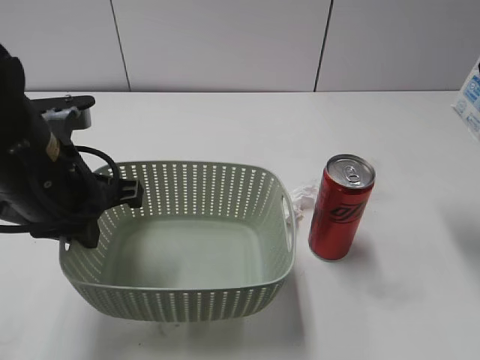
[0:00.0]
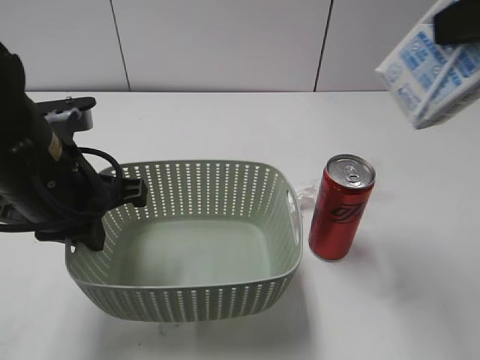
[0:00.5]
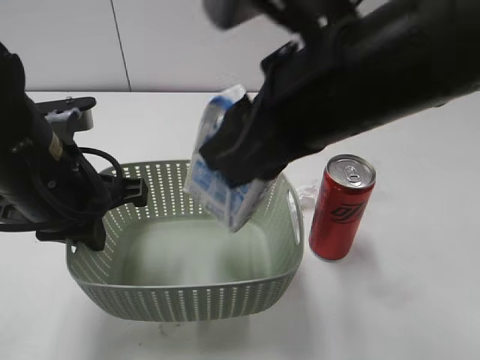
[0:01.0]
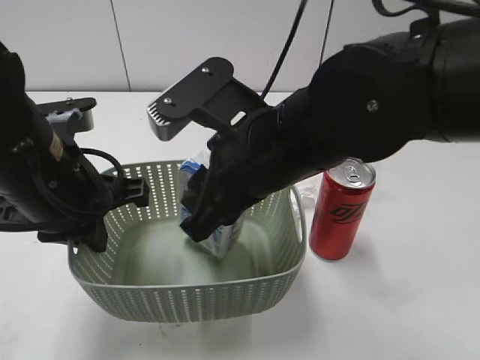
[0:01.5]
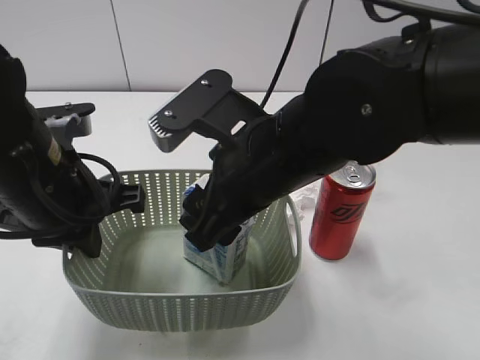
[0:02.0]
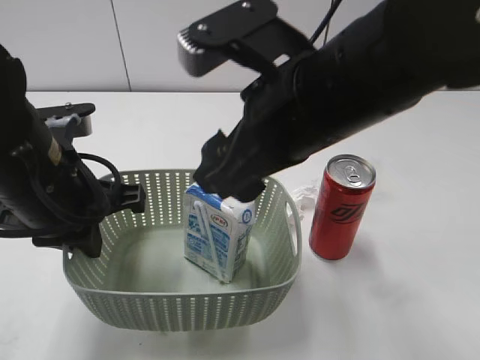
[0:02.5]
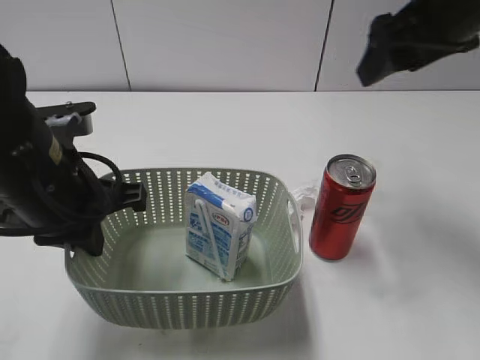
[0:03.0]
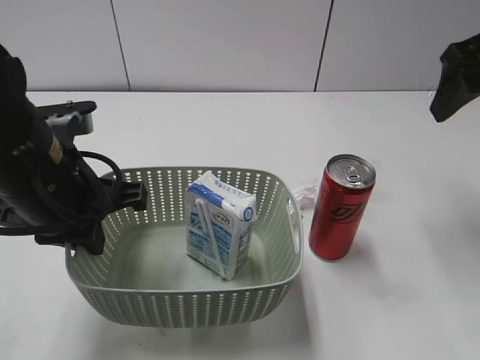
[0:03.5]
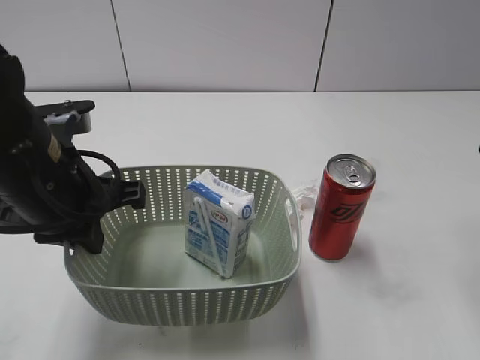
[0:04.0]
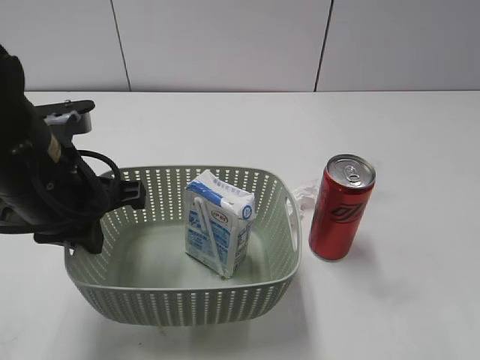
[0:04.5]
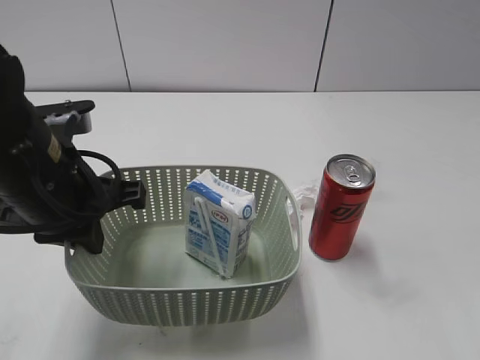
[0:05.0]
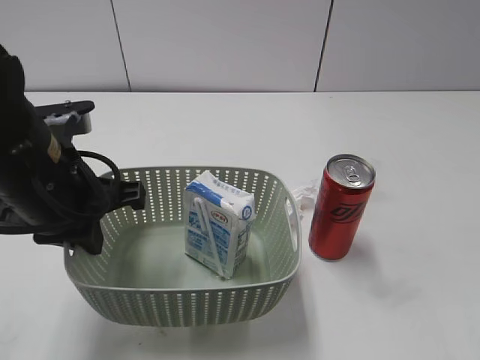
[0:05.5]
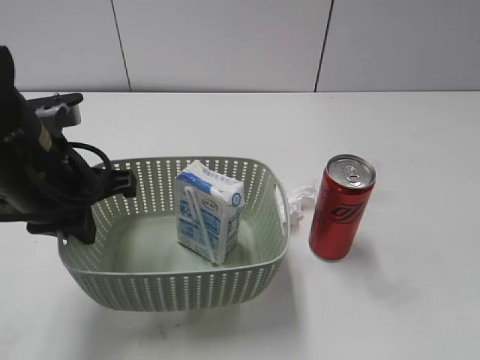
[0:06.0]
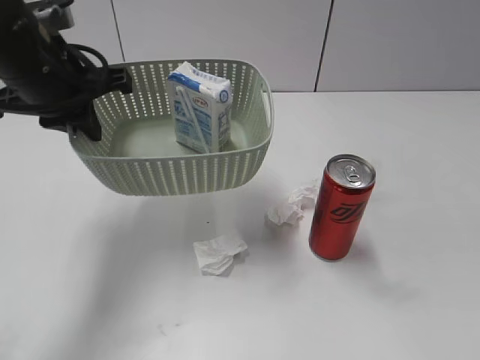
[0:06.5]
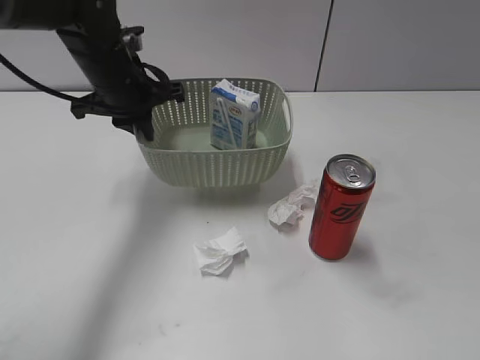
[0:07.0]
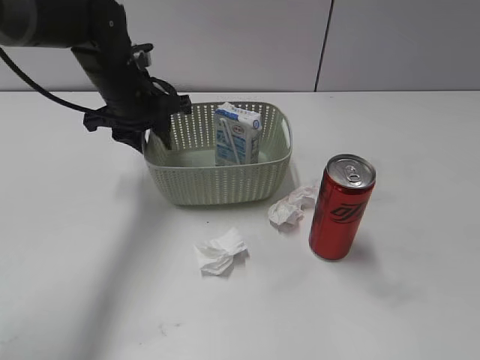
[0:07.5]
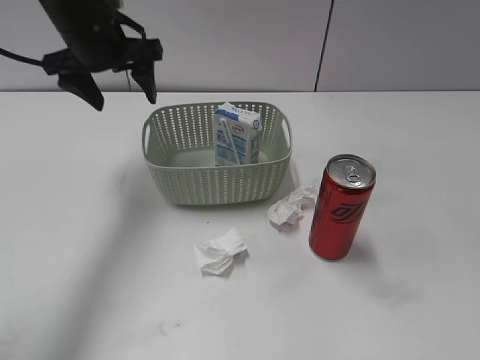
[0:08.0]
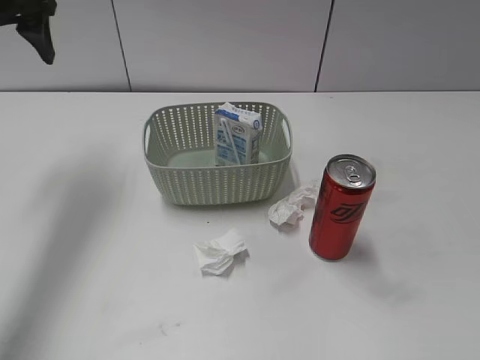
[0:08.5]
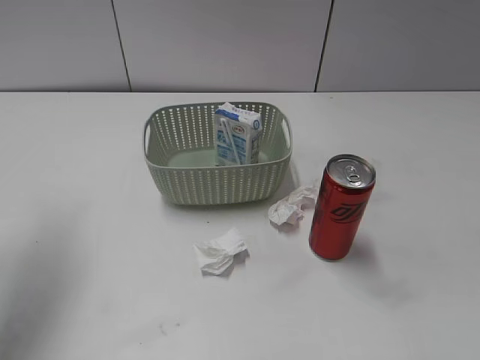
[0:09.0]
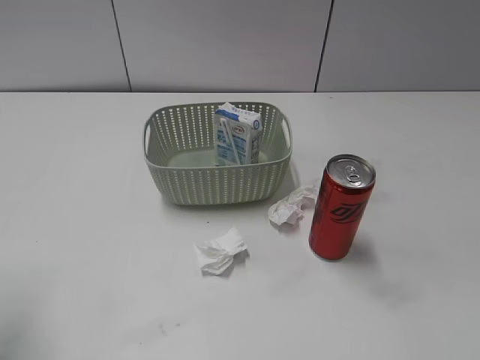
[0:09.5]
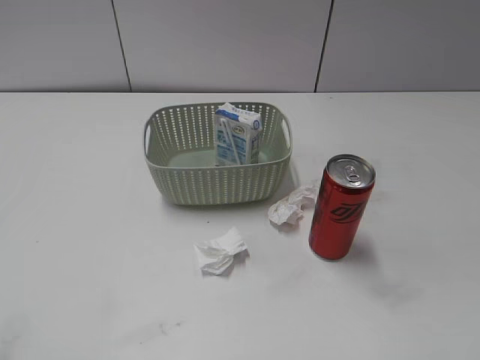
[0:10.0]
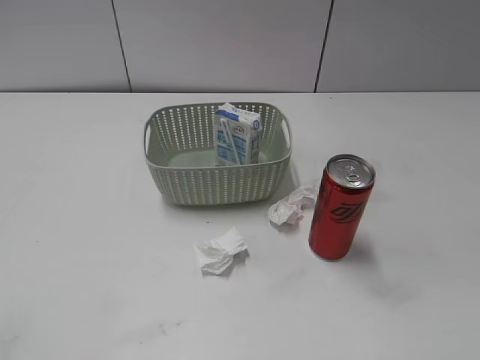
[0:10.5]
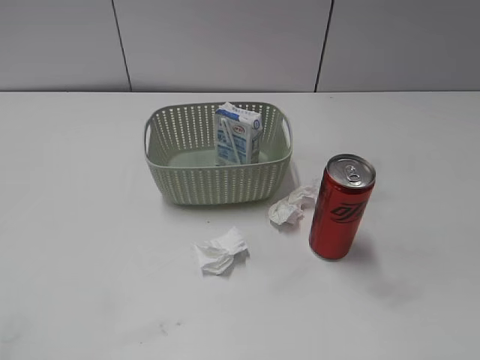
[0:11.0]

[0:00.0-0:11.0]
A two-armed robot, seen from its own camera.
Step, 0:00.0 to 0:02.5: Place the milk in the basket with right gripper.
Step, 0:03.0 to 0:07.5: Place the basket on the table with left gripper.
0:00.0 to 0:02.0: The right gripper goes approximately 25 cm to the left and downward, and opens up.
0:02.0 to 0:03.5: The right gripper shifts approximately 25 cm to the right and forward.
0:03.5 to 0:05.5: The right gripper shifts roughly 30 cm backward.
0:05.5 to 0:07.5: The left gripper goes about 20 cm forward, and opens up.
0:07.5 to 0:09.0: The left gripper is displaced to the left, backward and upward by about 25 cm, and opens.
0:09.0 to 0:11.0: The left gripper moves backward, approximately 30 cm.
